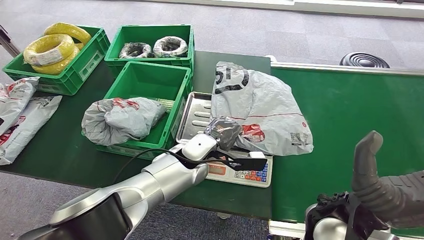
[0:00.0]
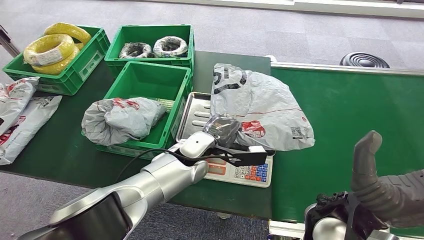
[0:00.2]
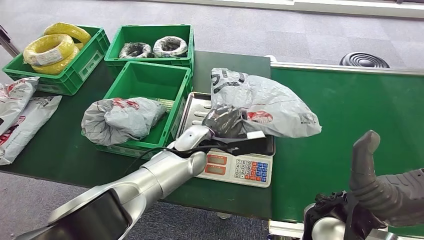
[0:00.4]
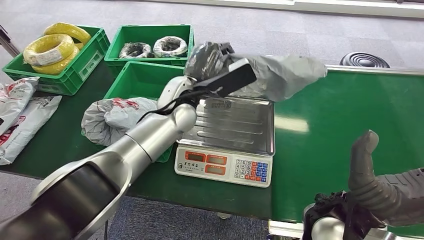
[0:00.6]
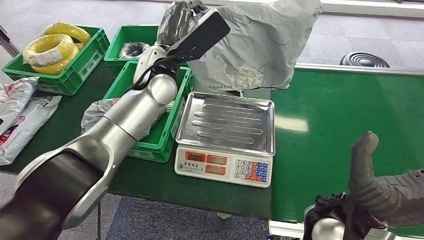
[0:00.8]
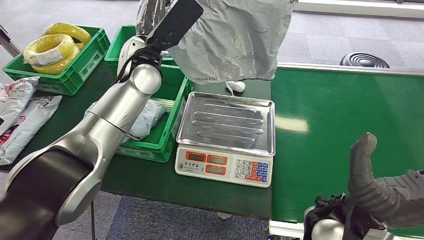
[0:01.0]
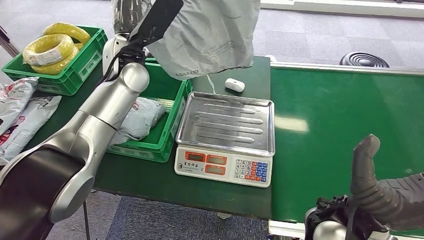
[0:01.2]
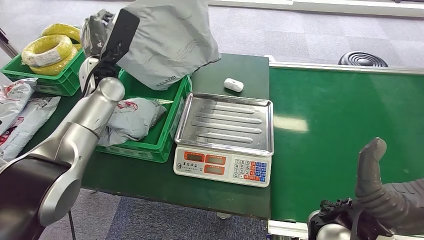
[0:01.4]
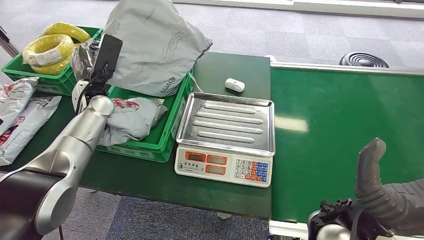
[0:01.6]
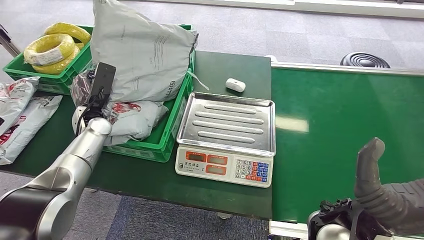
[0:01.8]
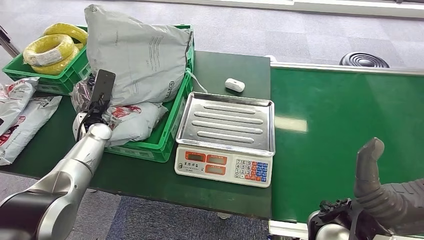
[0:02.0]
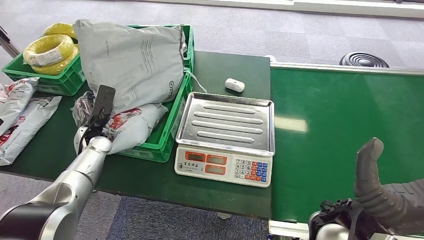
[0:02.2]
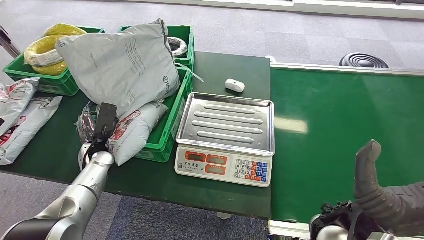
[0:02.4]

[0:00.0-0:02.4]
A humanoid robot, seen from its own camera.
Step, 0:01.0 to 0:02.4: Place the package into the parcel locker.
